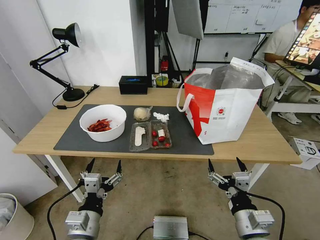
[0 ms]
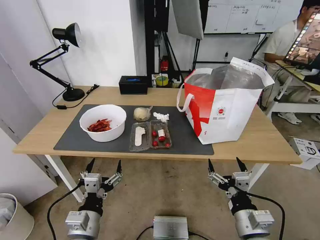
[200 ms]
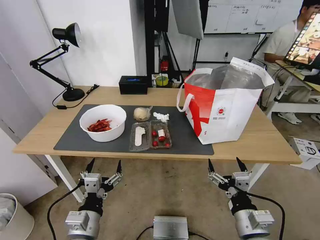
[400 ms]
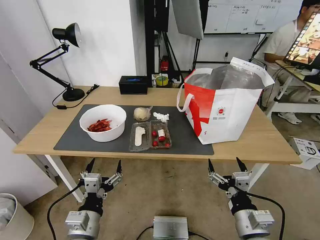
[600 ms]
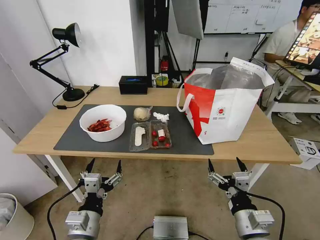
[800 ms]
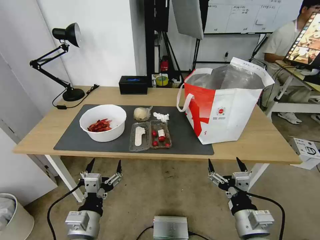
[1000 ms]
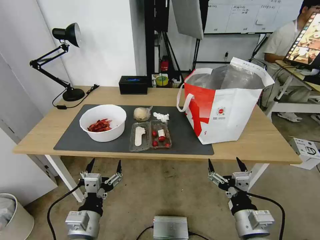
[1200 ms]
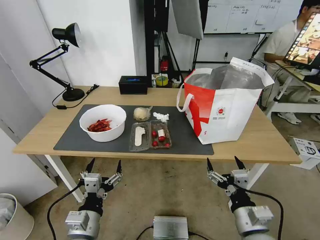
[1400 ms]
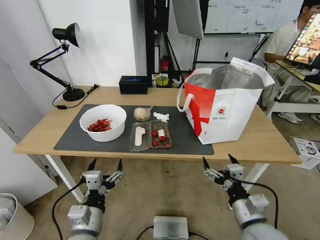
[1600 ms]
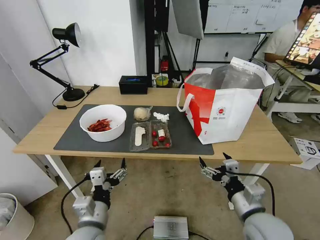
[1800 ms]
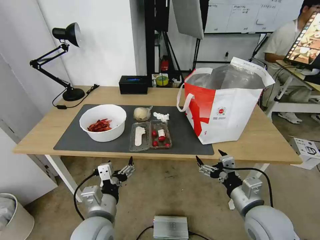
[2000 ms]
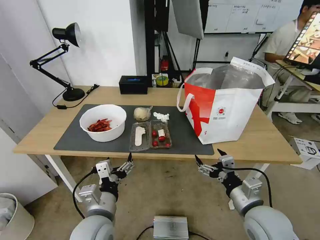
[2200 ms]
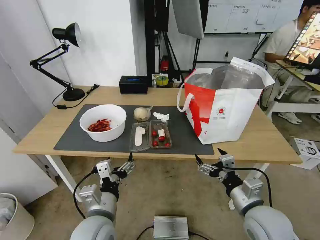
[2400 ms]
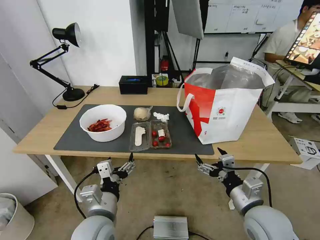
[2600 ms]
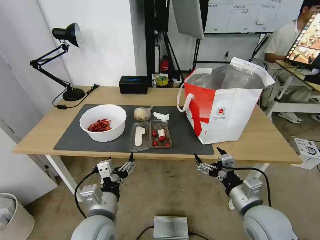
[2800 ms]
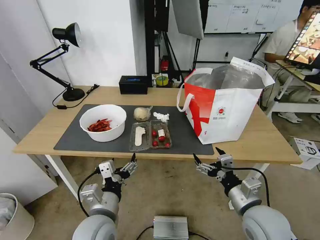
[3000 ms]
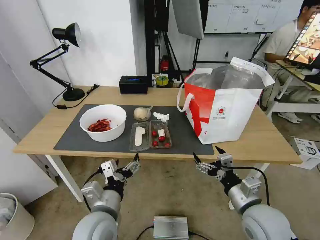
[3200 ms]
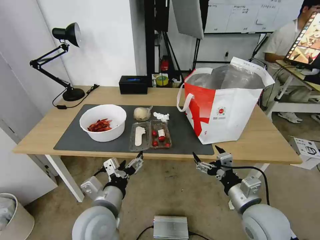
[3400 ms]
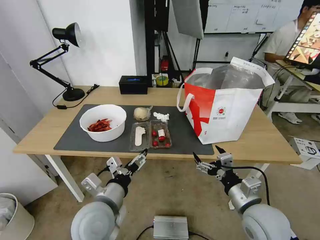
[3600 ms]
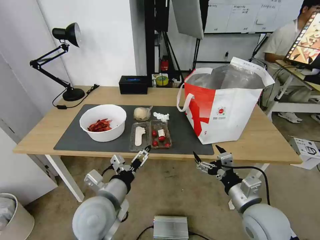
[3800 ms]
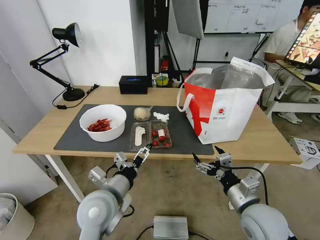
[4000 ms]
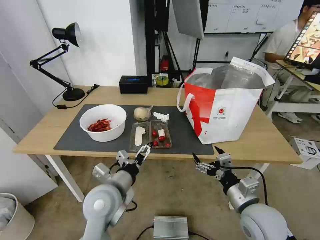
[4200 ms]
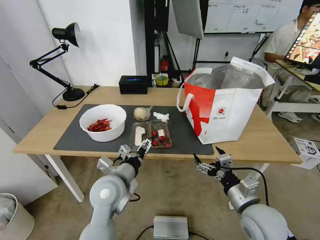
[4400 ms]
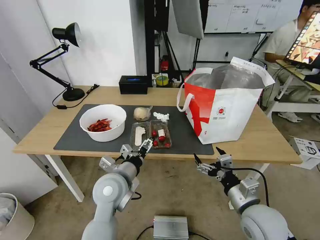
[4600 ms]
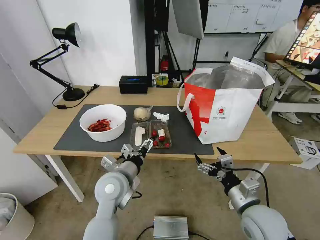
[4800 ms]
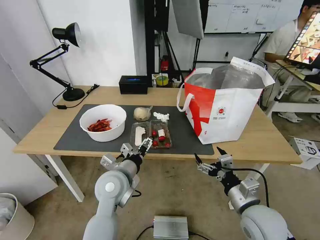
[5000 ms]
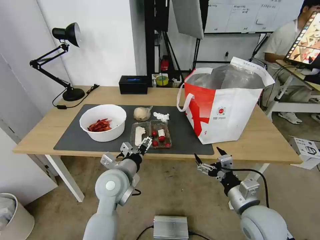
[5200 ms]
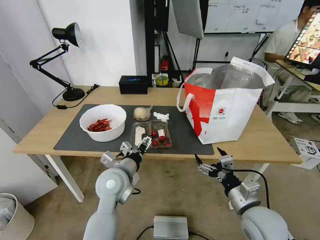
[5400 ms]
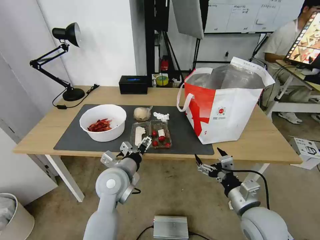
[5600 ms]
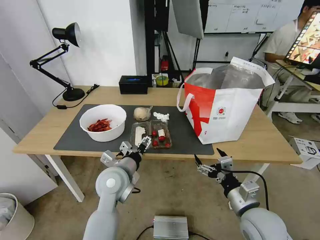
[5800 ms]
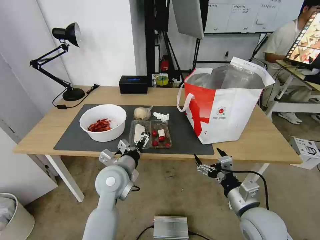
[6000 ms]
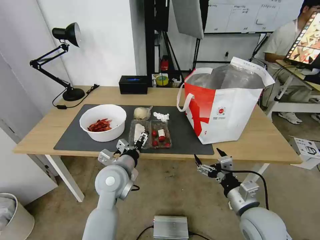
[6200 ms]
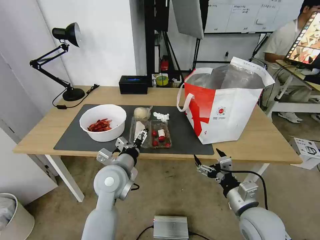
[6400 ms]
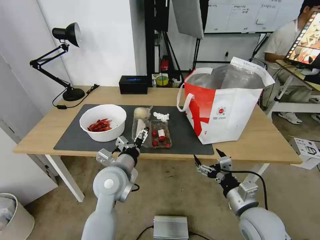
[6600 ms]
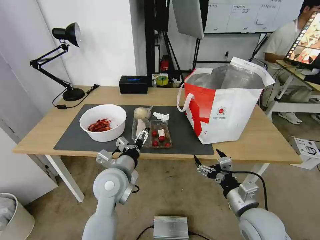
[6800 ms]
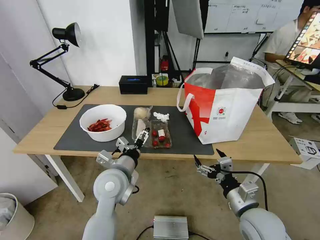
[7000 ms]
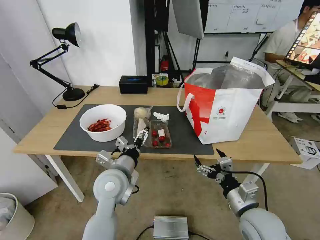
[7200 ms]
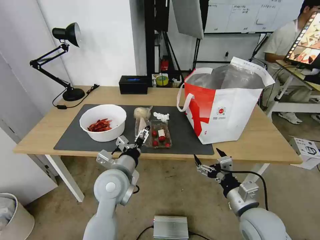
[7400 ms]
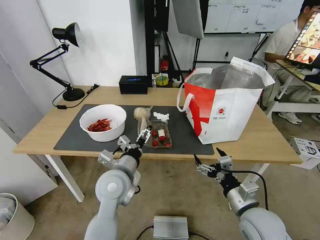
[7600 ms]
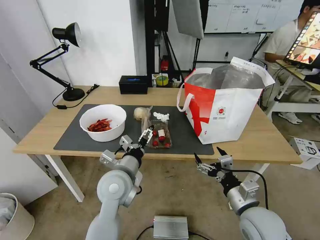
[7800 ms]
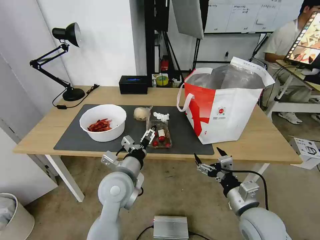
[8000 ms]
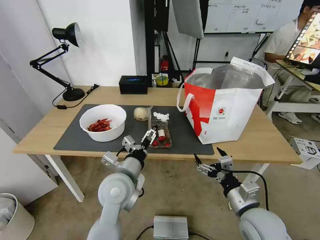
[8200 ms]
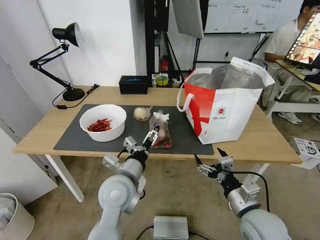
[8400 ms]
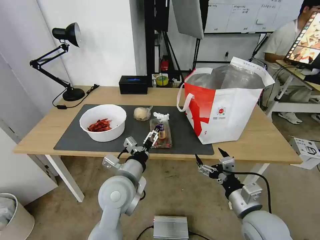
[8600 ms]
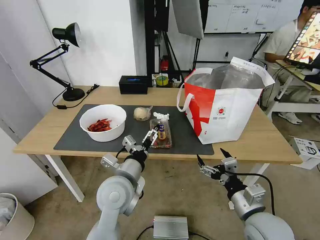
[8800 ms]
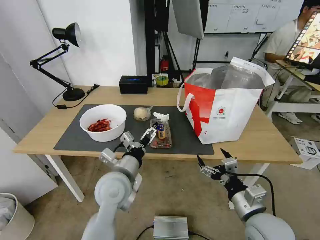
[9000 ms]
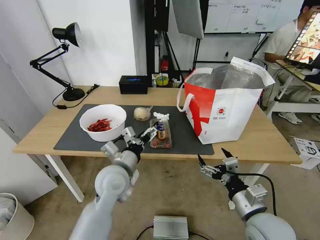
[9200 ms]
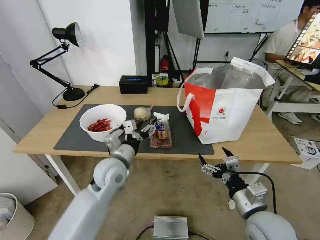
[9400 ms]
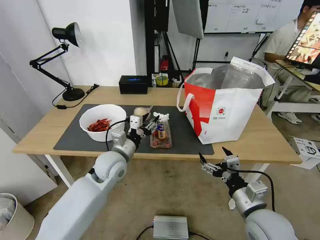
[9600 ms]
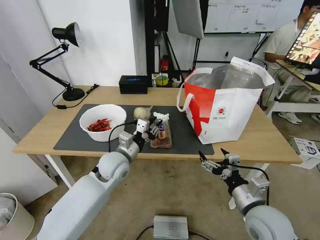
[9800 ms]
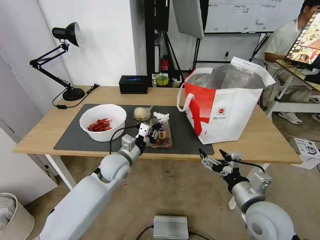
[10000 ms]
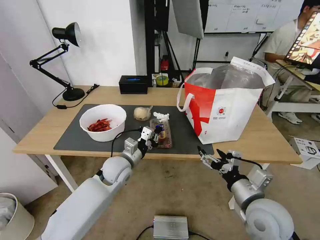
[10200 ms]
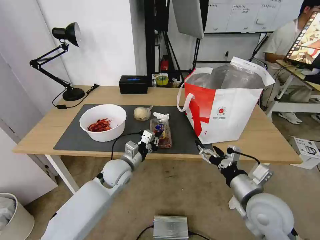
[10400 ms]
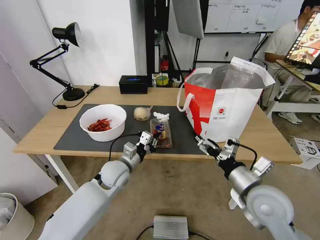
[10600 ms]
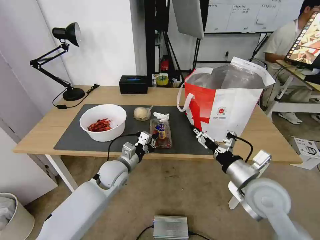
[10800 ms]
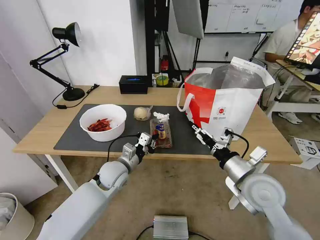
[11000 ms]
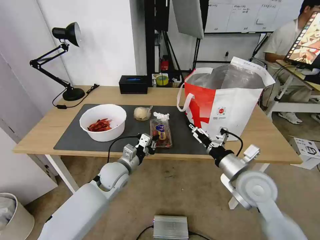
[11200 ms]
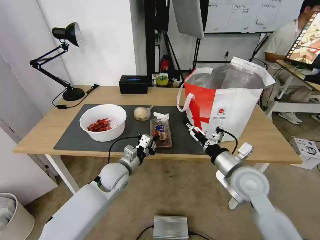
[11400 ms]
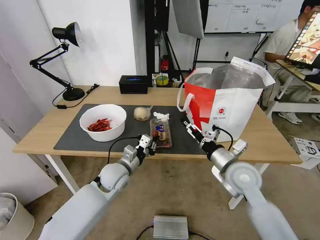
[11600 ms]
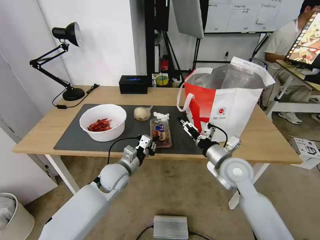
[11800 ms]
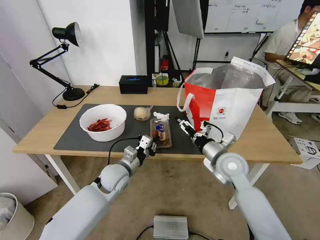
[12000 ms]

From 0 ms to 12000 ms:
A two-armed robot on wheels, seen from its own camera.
Task of the whole recording: Pick up the trash from the table and place it into the takeout bag.
From 1600 ms to 3000 ms: The left gripper changes place by about 5 cm.
From 3000 ms to 4400 ms: The left gripper moves forward, roughly 10 cm.
From 4400 ms to 9000 ms: The grippers make only small movements.
From 9000 ms to 10400 ms: The left gripper shifts some 10 cm forward and downward, and closes up.
From 10400 ms to 12000 ms: The right gripper travels forward by about 15 cm.

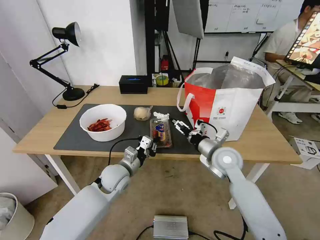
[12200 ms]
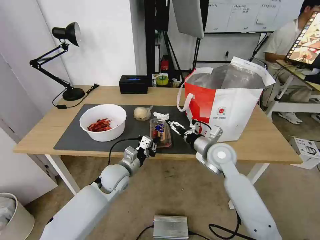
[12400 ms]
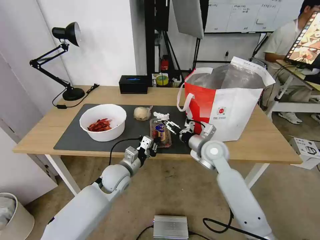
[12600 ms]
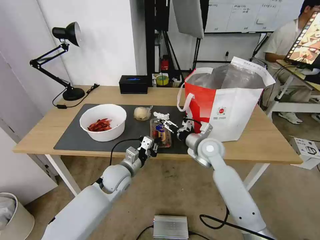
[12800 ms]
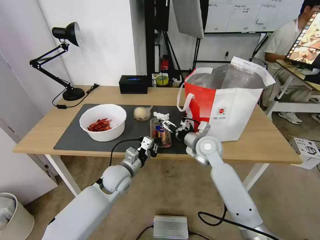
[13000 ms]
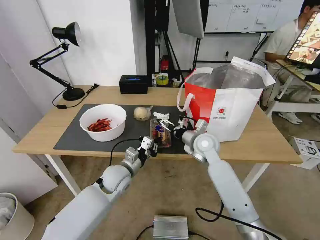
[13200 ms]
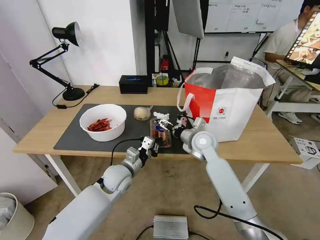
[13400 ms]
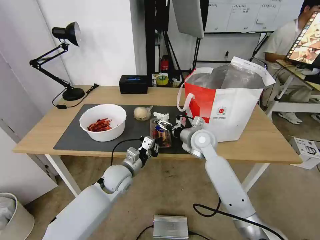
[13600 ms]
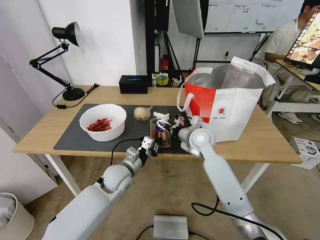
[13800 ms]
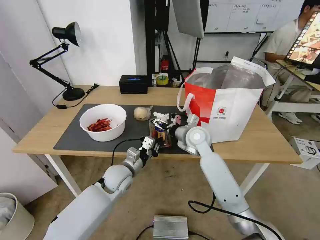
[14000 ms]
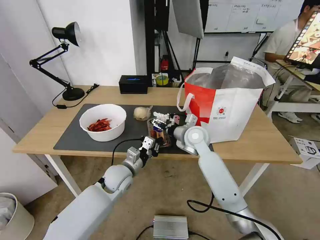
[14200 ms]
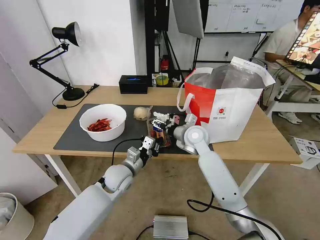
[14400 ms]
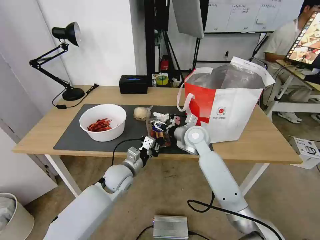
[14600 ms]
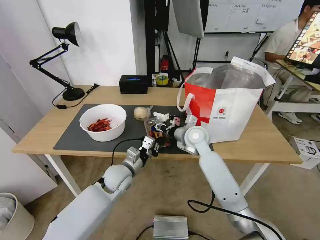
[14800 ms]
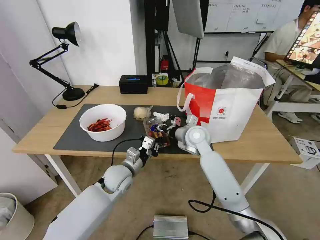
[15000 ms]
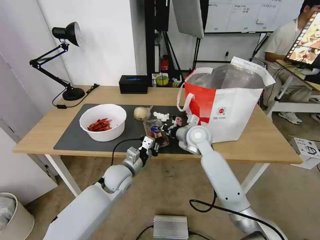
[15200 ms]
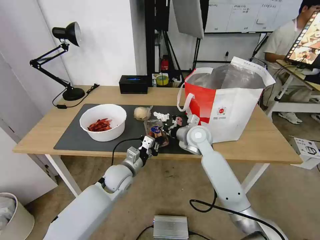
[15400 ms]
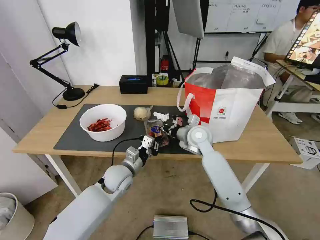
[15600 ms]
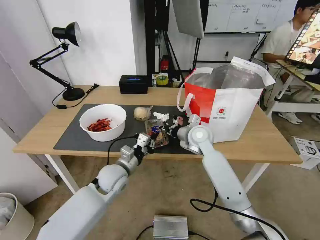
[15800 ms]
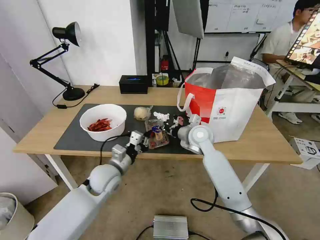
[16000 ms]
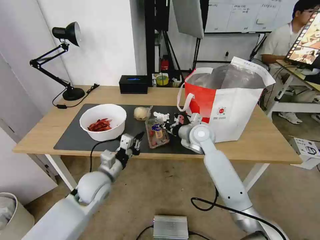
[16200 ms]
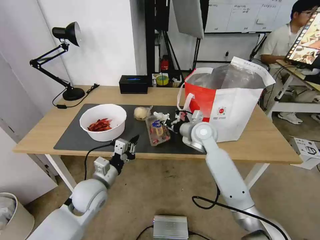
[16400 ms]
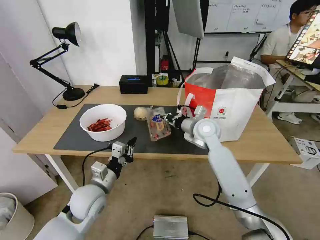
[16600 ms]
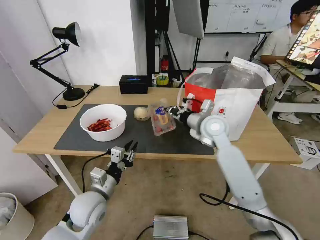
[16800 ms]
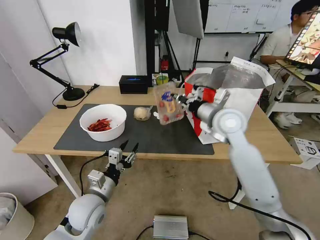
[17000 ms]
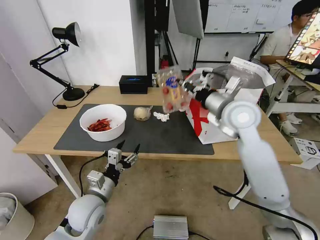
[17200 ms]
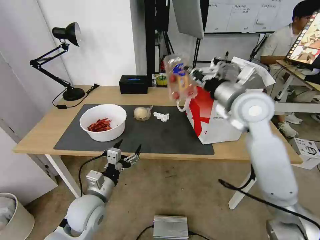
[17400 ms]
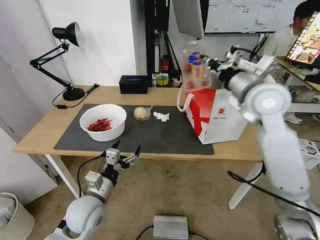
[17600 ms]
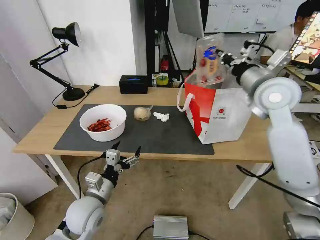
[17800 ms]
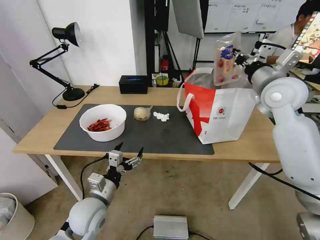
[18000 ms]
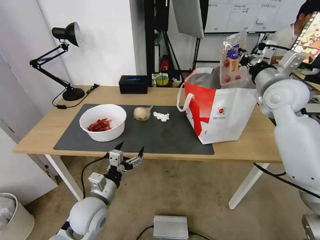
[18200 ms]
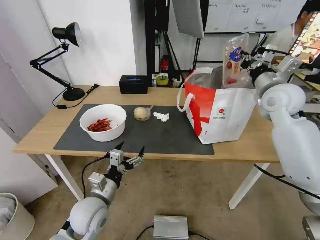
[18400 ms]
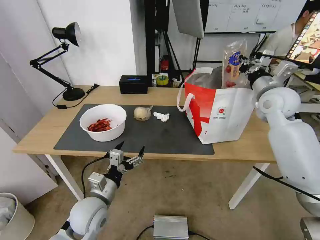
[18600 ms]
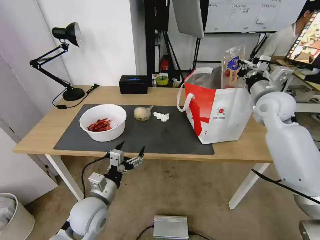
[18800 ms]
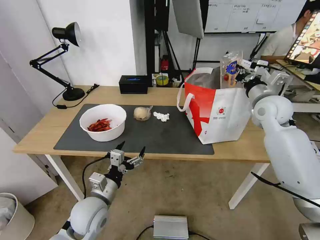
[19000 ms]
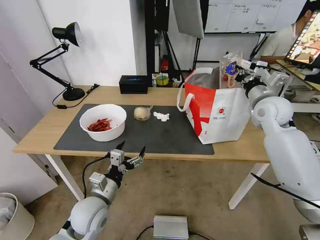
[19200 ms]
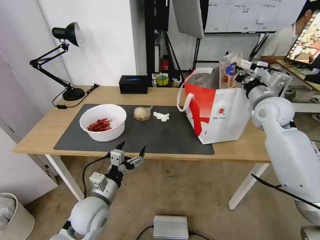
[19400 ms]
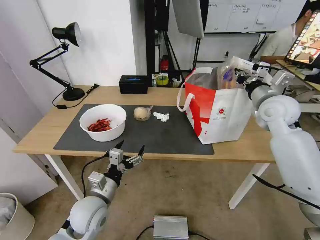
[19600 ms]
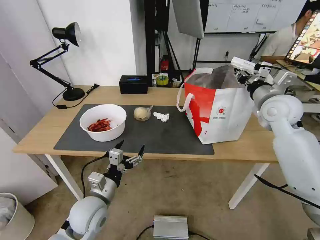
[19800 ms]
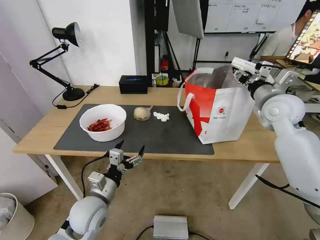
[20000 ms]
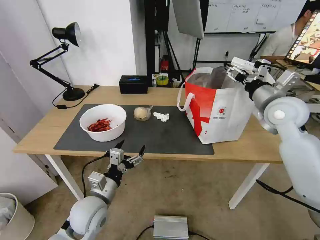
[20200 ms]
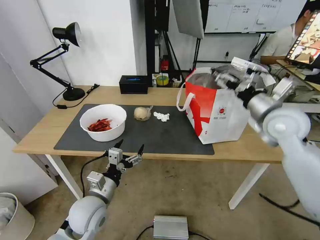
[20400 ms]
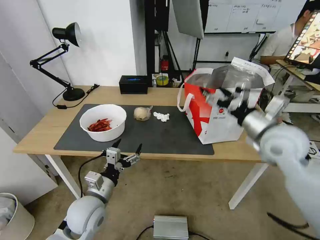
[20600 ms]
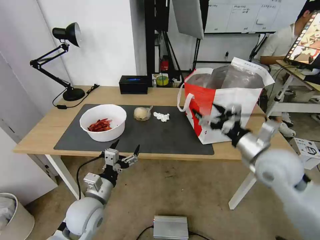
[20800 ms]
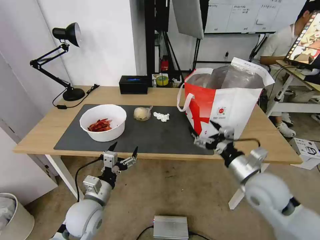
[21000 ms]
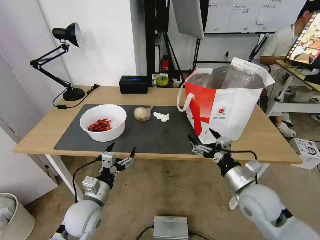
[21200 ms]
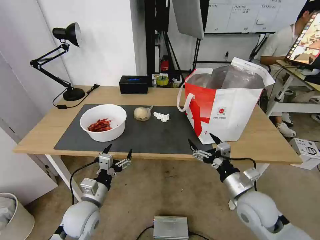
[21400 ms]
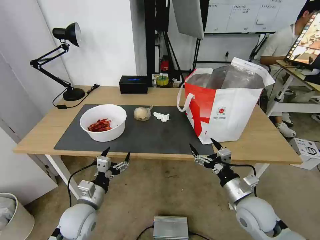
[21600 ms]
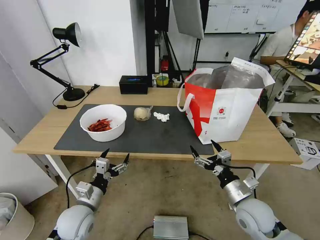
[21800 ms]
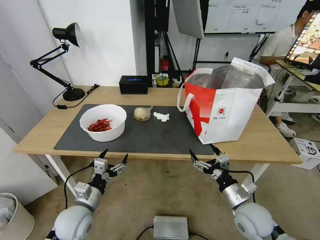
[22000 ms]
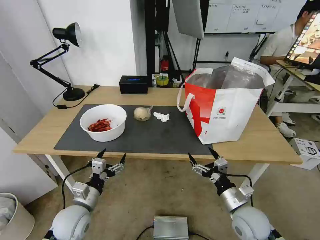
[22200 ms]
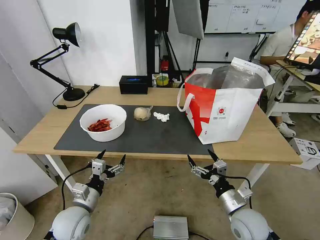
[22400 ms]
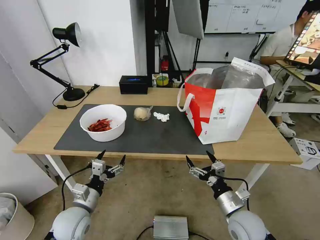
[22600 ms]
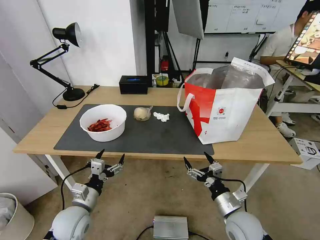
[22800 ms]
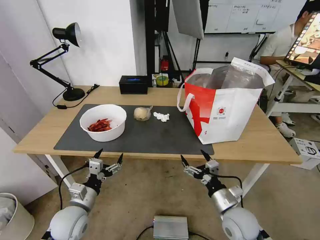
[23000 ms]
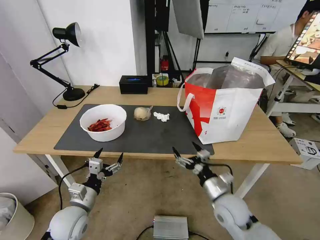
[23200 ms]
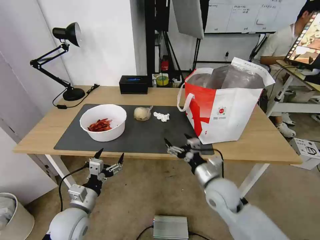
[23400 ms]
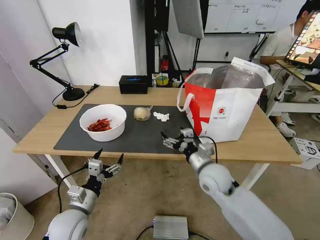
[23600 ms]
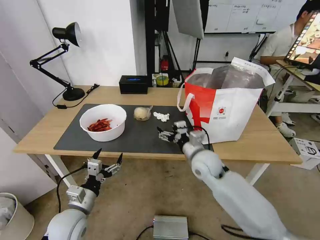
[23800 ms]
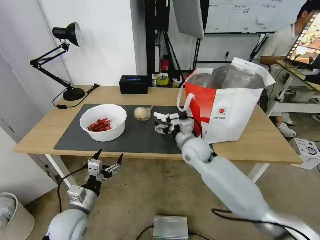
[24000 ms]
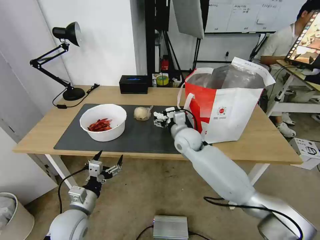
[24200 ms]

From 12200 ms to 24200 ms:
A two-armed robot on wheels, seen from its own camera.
Task of the whole recording: Pick up the trash from the table and place it into the takeout bag.
From 12200 ms to 13800 ms: The right gripper goes some 10 cm forward and to the left.
From 13800 ms to 15200 ms: The right gripper closes its fingers.
From 15200 ms to 16600 ms: The left gripper travels backward and to the left by some 10 cm.
From 16600 ms to 18200 ms: The left gripper opens. Meanwhile the right gripper is displaced to the right and upward by approximately 25 cm.
From 18200 ms to 19800 ms: The right gripper opens.
From 19800 ms to 21200 ms: The right gripper goes some 25 cm backward and downward, and opens its fingers.
From 21200 ms to 22600 ms: The left gripper shifts by about 5 cm; the right gripper moves downward, about 10 cm.
From 22600 ms to 24200 ms: The right gripper heads forward, to the left and upward, covering about 30 cm.
